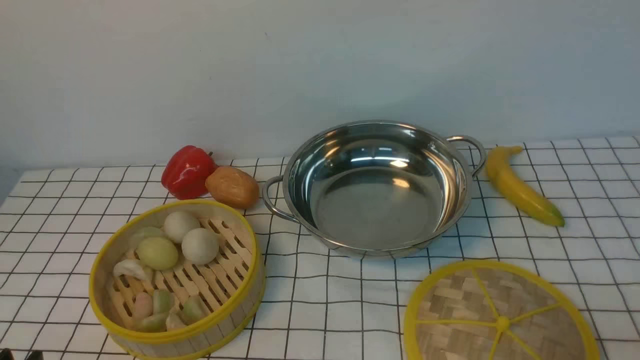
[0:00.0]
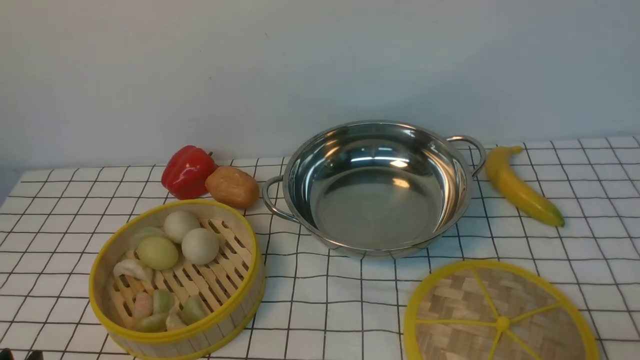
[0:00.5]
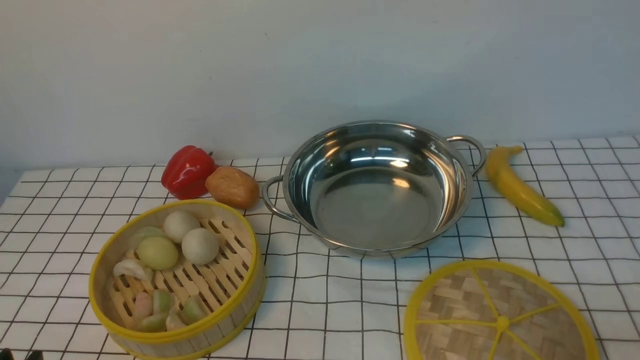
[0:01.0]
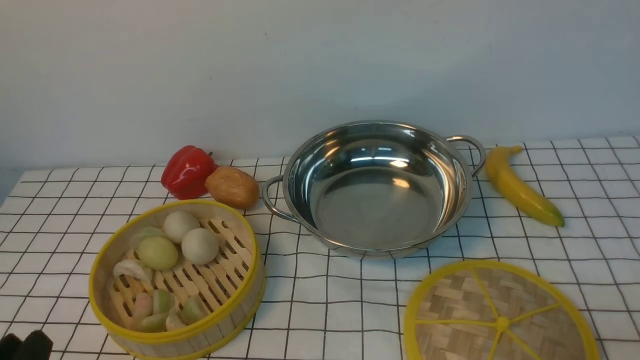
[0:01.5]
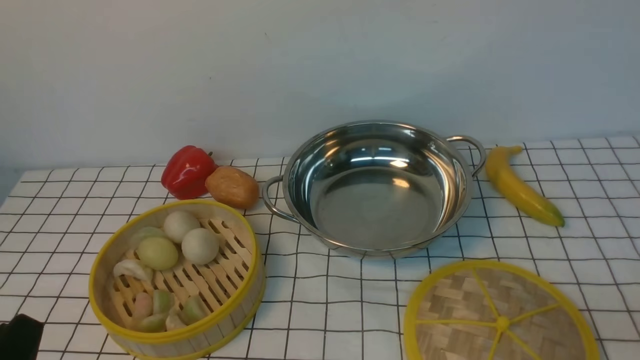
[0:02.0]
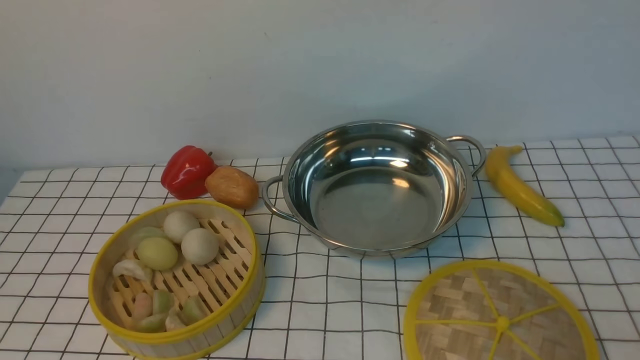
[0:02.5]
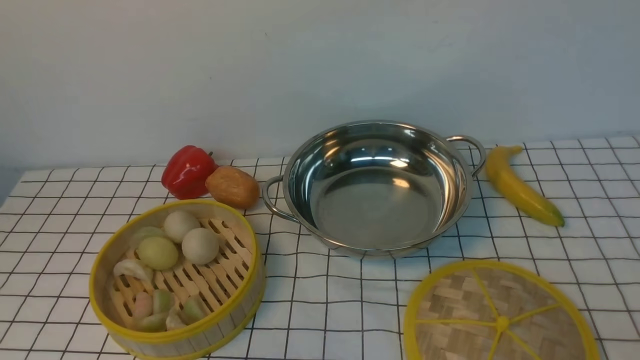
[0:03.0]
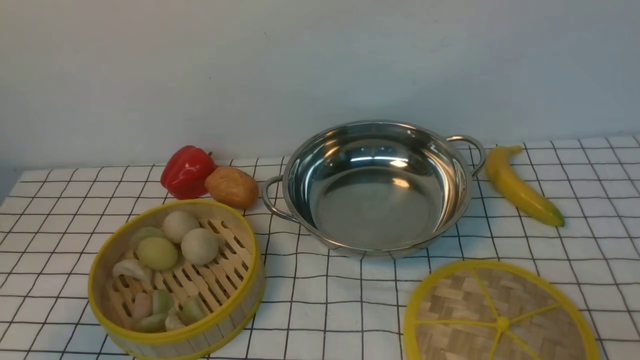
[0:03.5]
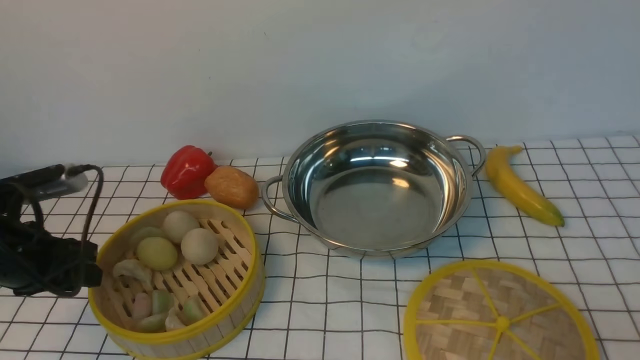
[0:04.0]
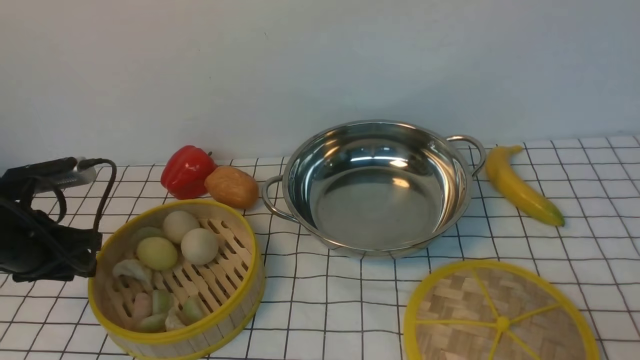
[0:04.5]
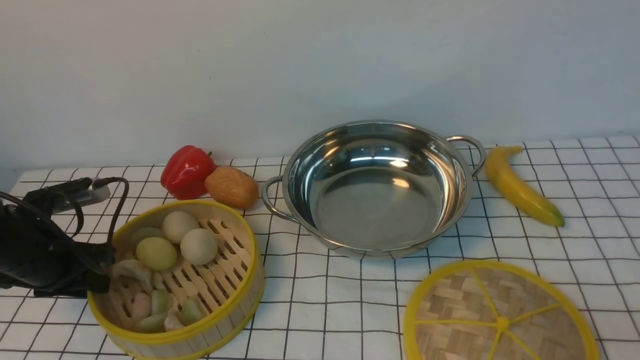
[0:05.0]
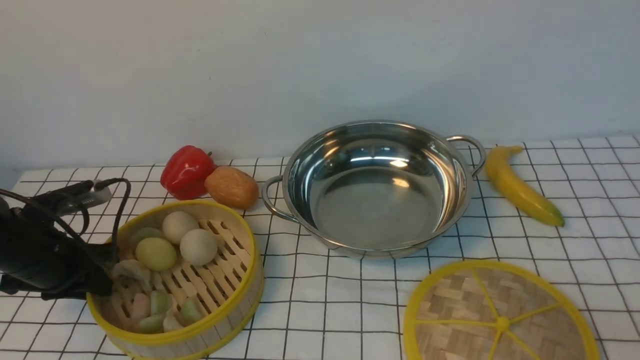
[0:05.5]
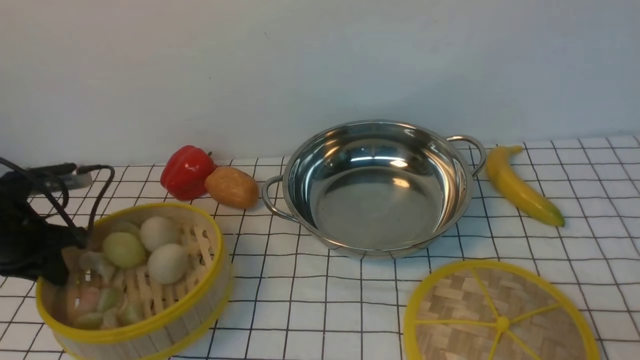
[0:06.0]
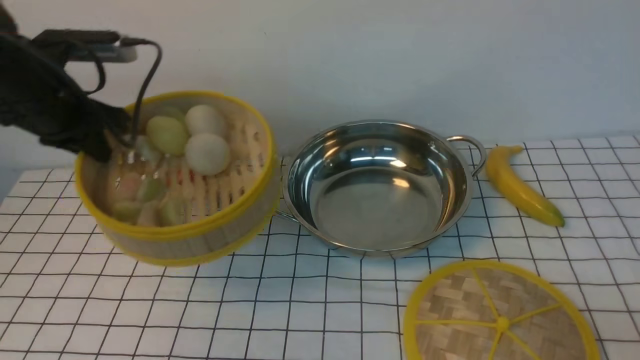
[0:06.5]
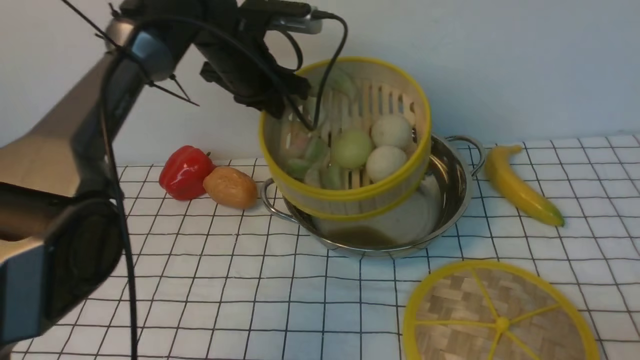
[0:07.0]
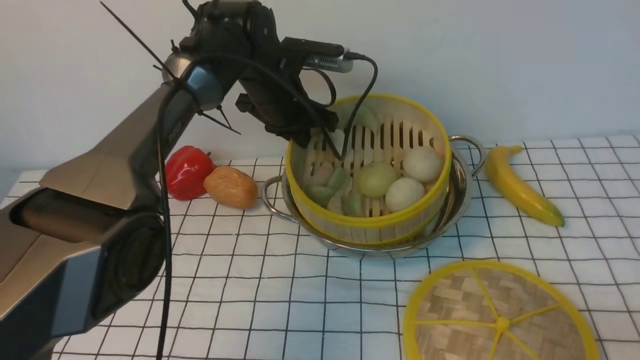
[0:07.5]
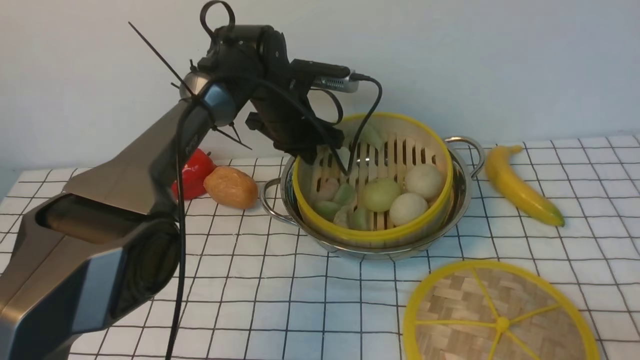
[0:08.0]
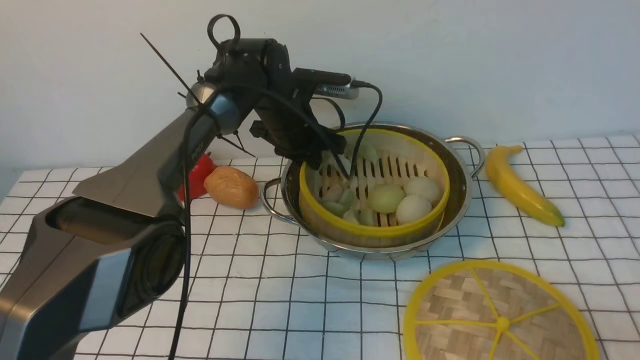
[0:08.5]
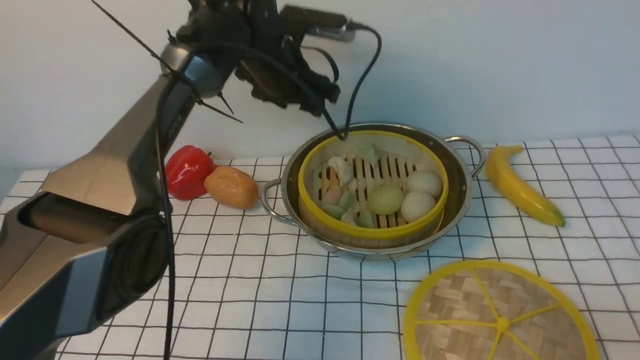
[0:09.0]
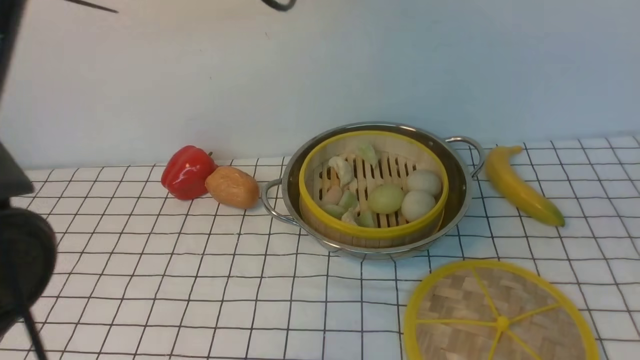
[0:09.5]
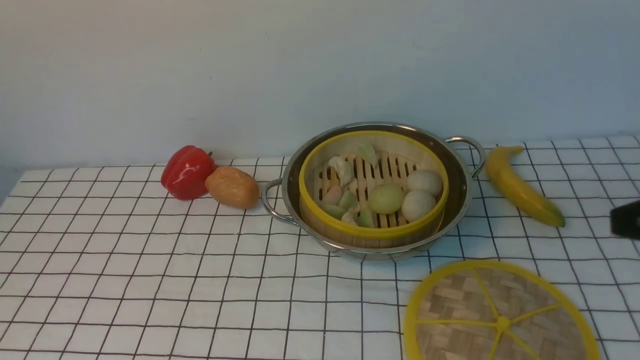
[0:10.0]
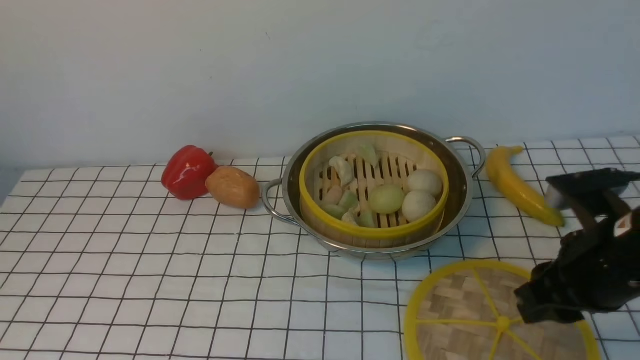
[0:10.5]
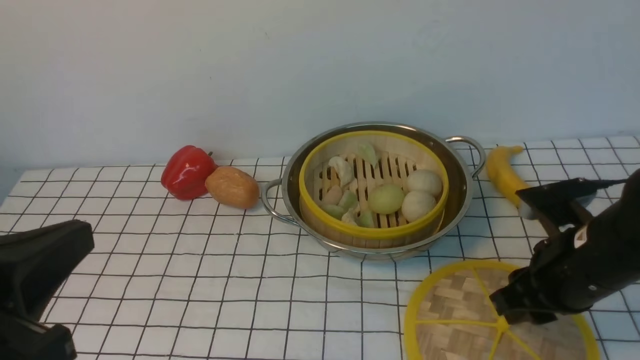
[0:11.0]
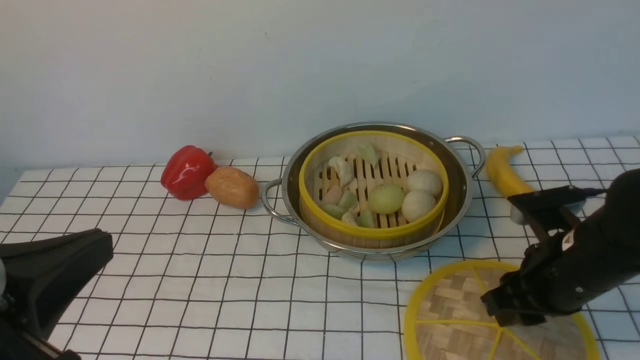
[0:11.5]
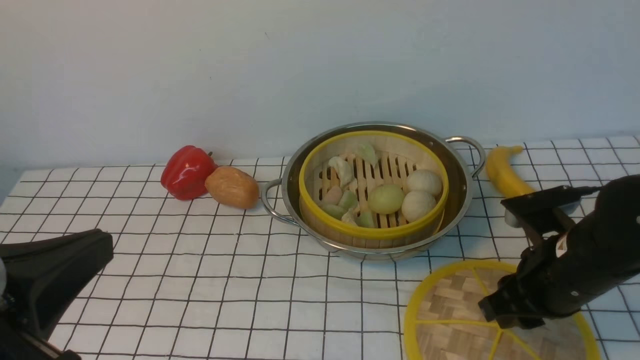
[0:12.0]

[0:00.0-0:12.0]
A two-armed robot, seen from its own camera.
Task of the whole recording: place the steamer in the pot on the white tablecloth, and put the lid on the steamer.
Step, 0:00.0 to 0:06.0: use the left arm to lift the steamer closest to it.
Step, 0:06.5 to 0:08.5: use the left arm to put the steamer into the iron steamer pot in the middle.
0:02.0 to 0:04.0: The left gripper heads forward and to the left, covering about 25 cm.
0:04.0 to 0:06.0: The left gripper moves forward, approximately 5 cm, and closes up.
0:06.0 to 0:08.0: The left gripper shifts about 35 cm to the right and forward.
0:08.0 to 0:10.0: The right gripper is displaced upward and forward by roughly 20 cm; the left gripper is displaced upward and backward by some 40 cm, and opens, then closes again.
0:10.0 to 0:12.0: The right gripper moves downward, forward and to the left, some 20 cm. Meanwhile the left gripper heads downward and backward, covering roughly 30 cm.

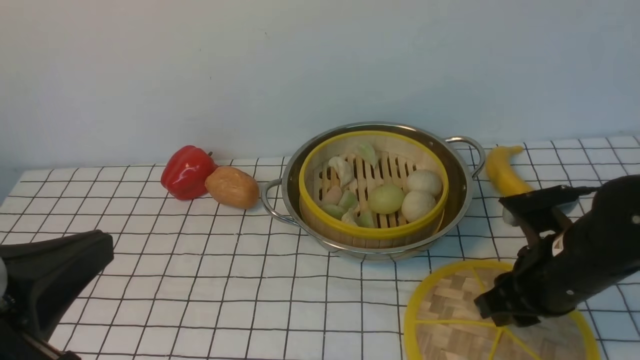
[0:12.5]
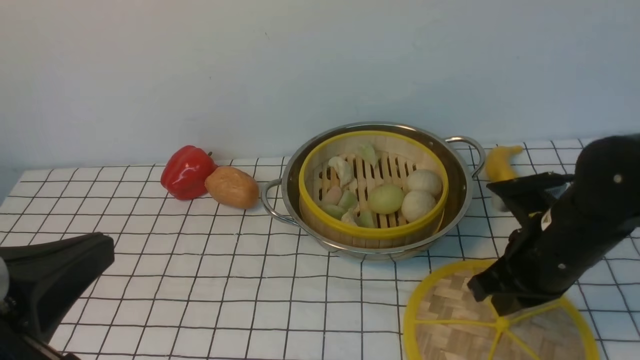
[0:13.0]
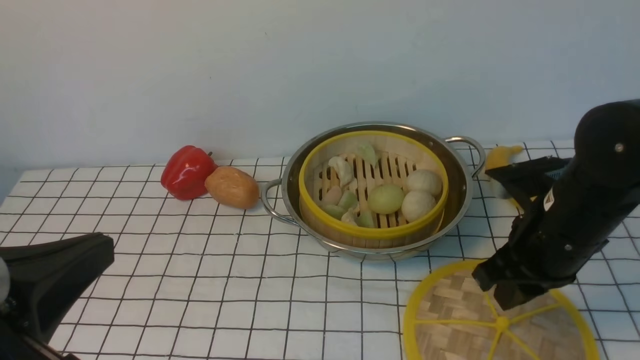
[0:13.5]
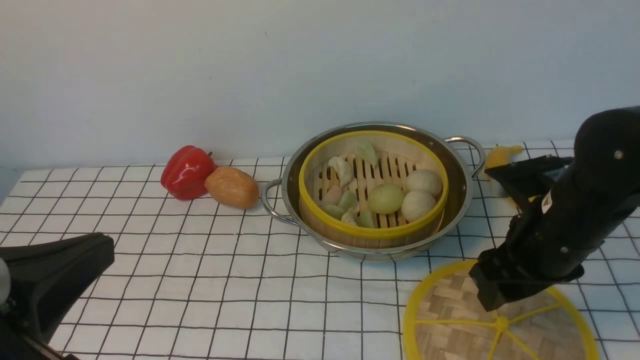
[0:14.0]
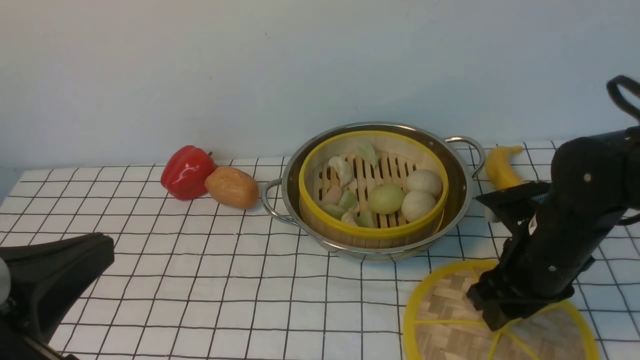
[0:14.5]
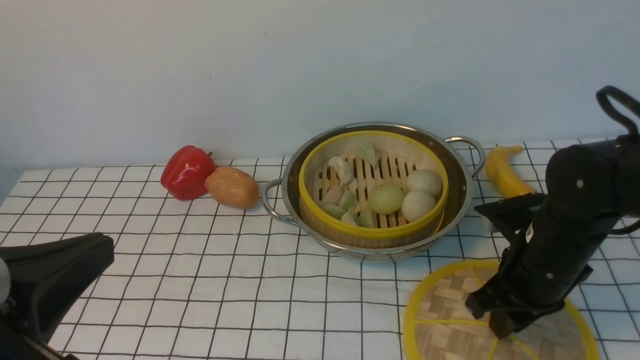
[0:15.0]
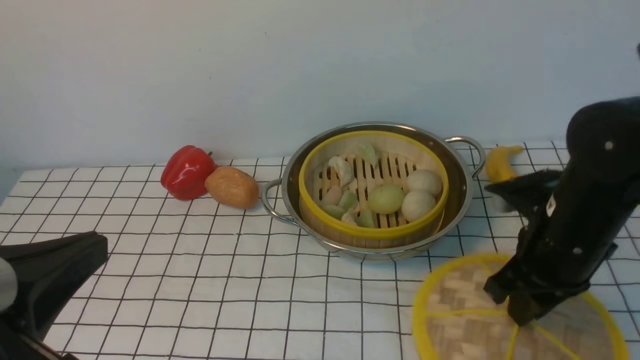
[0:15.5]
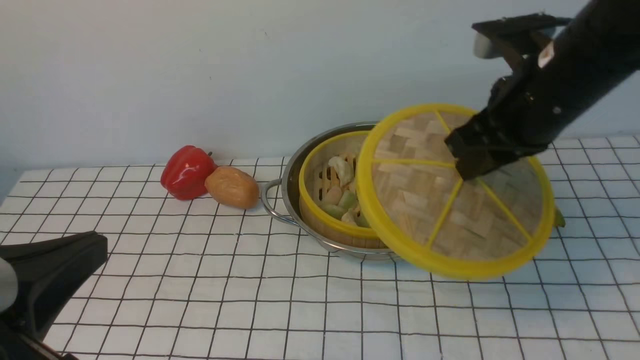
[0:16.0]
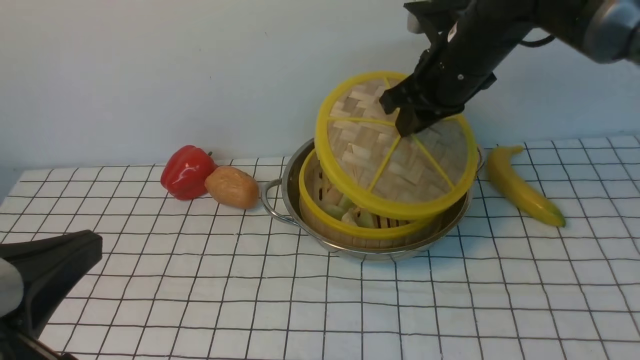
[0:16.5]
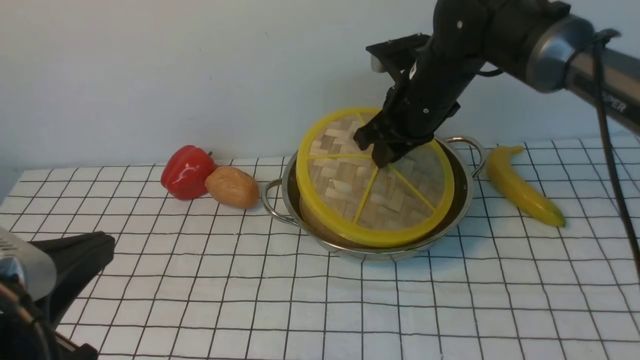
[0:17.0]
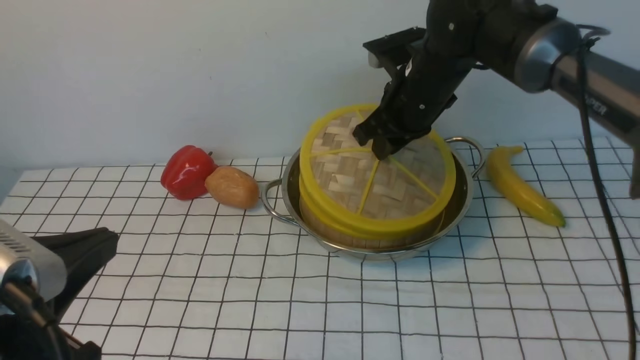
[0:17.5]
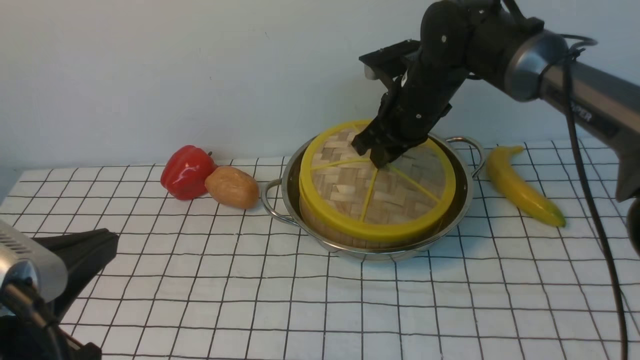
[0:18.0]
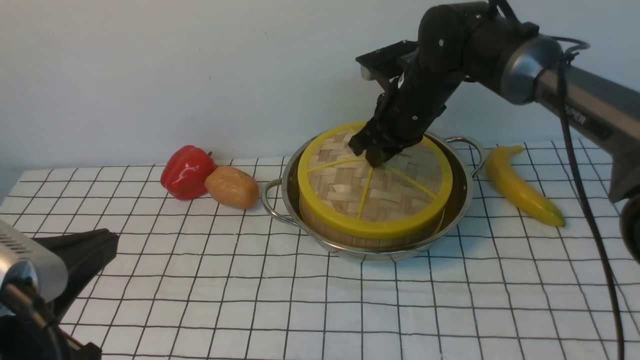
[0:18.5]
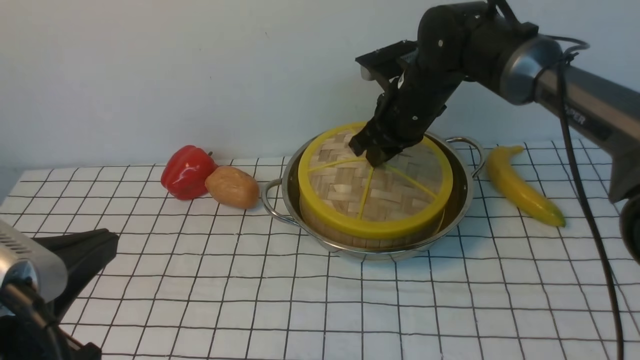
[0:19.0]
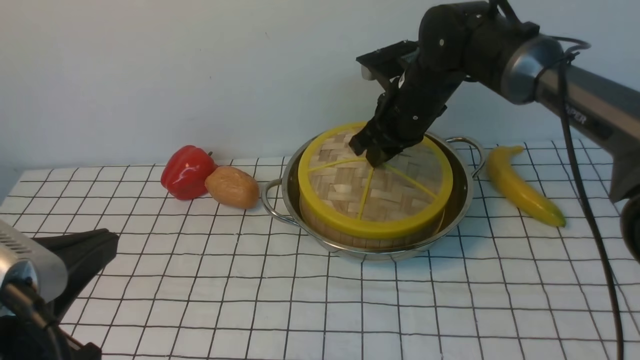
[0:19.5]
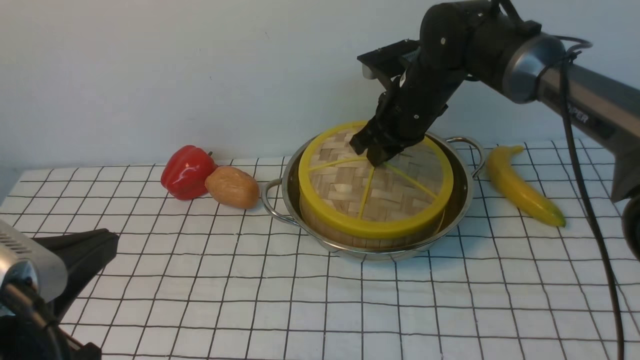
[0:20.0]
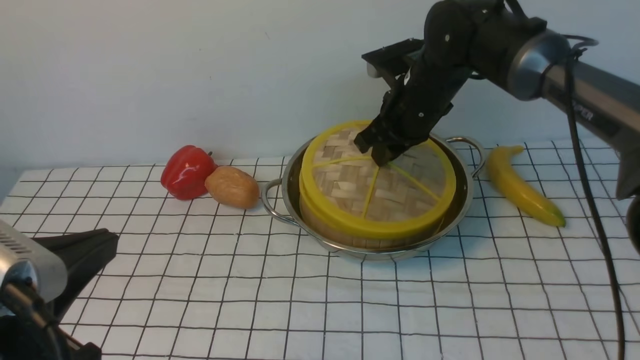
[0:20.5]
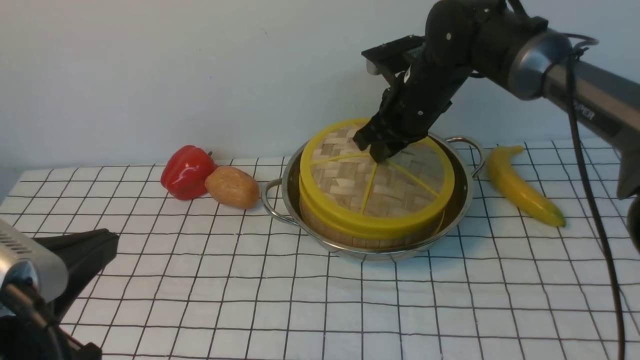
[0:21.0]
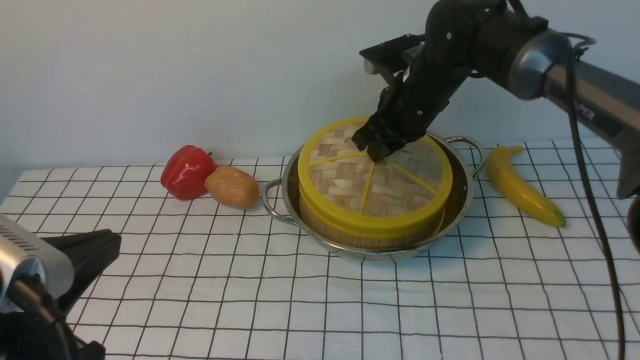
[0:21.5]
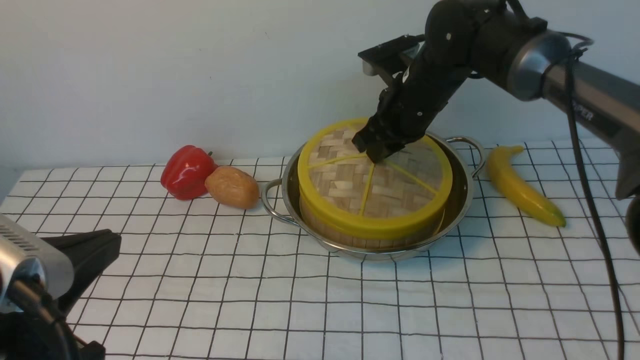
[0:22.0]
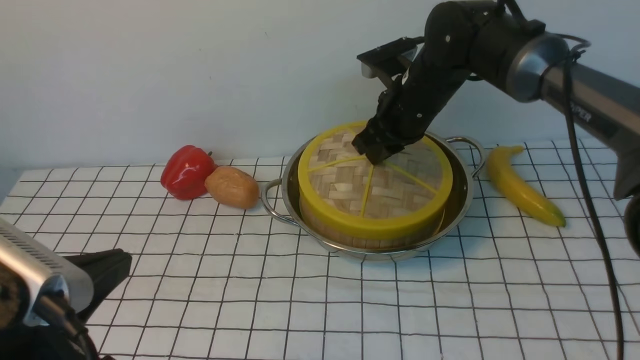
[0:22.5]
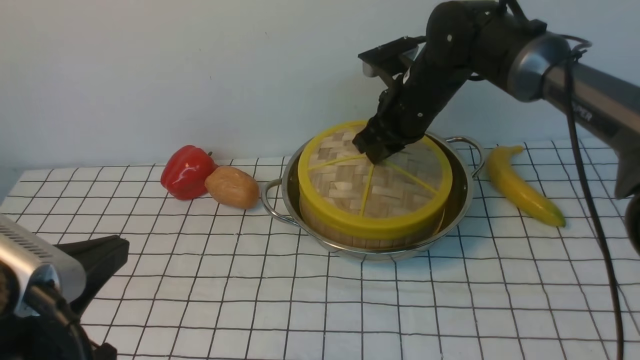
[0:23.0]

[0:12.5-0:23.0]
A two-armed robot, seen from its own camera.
Task of the whole recording: place the steamer in the pot on the white tablecloth, and put the lid on the steamer.
Step, 0:12.5 to 0:15.5: use the right arm to lift the lid of the steamer.
0:12.5 to 0:14.5: The grippers move only a little.
0:14.5 to 0:16.5: The right gripper is displaced forward, upward and to the left by approximately 20 cm, and closes.
0:16.5 to 0:19.0: The right gripper heads downward, covering about 5 cm.
0:19.0 to 0:21.0: Both grippers stay put.
0:21.0 to 0:23.0: The grippers stay close to where they were, moving slightly.
